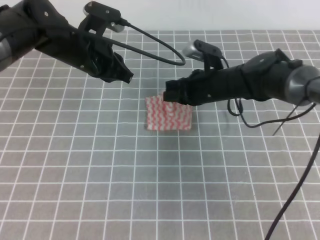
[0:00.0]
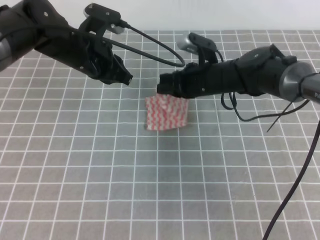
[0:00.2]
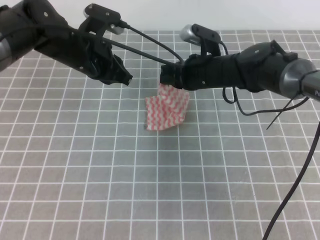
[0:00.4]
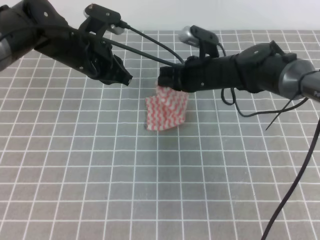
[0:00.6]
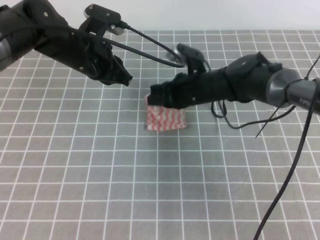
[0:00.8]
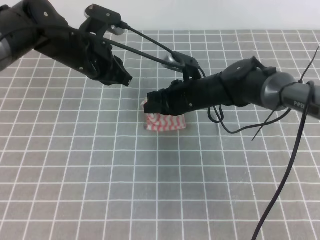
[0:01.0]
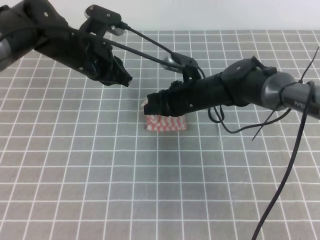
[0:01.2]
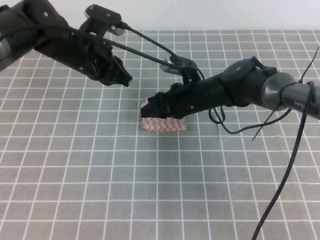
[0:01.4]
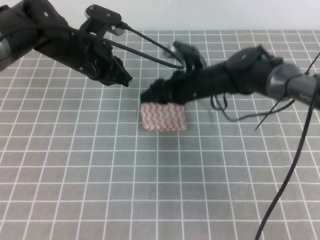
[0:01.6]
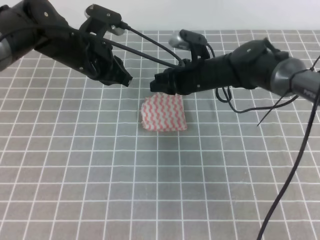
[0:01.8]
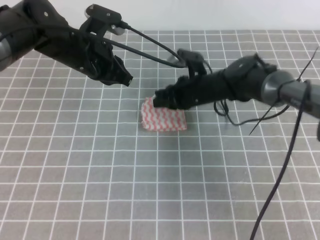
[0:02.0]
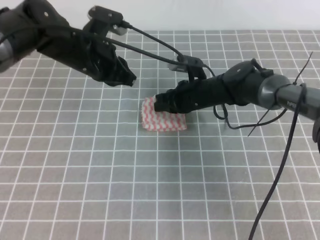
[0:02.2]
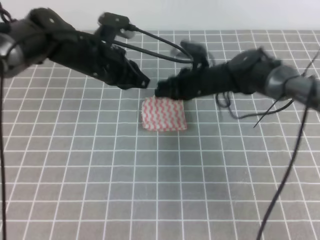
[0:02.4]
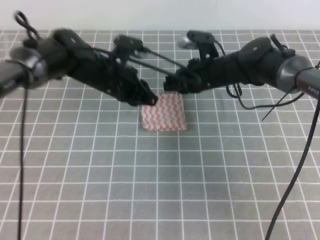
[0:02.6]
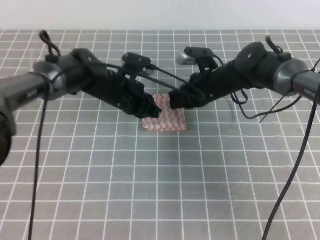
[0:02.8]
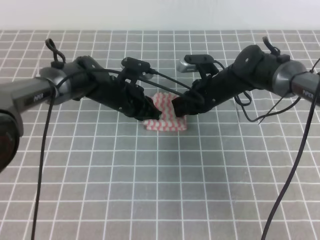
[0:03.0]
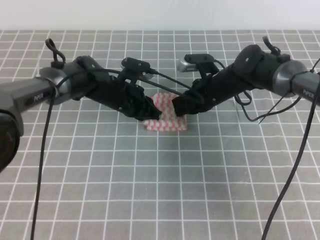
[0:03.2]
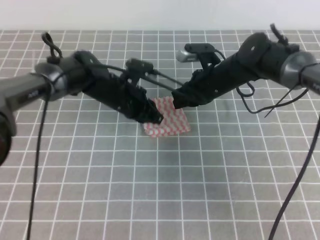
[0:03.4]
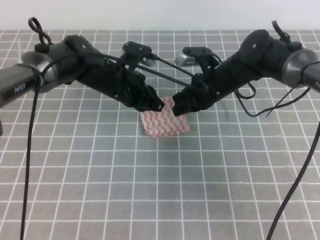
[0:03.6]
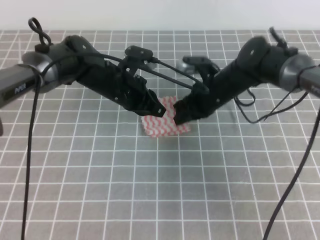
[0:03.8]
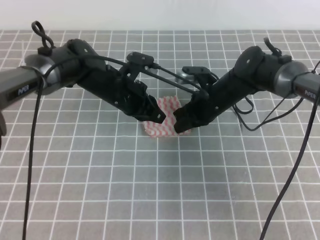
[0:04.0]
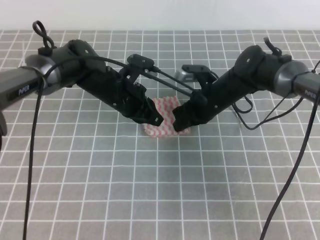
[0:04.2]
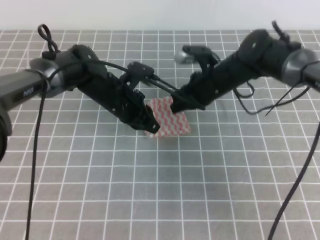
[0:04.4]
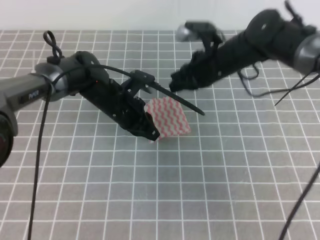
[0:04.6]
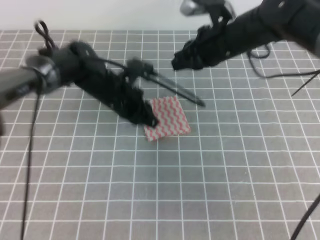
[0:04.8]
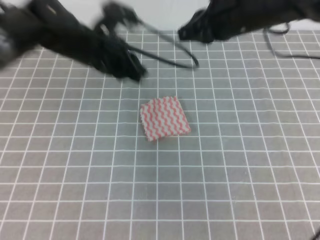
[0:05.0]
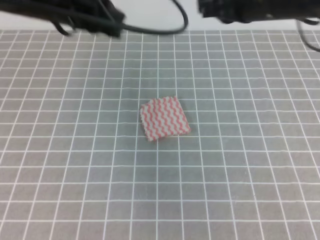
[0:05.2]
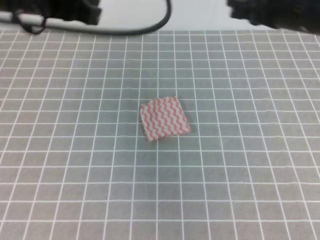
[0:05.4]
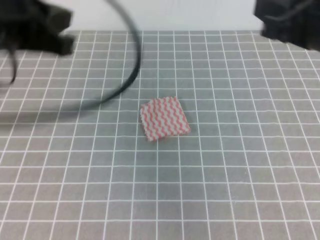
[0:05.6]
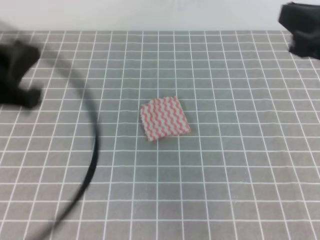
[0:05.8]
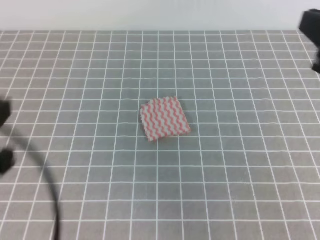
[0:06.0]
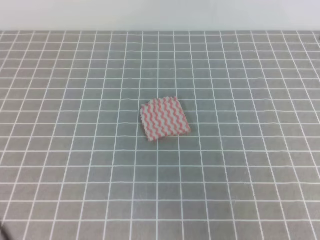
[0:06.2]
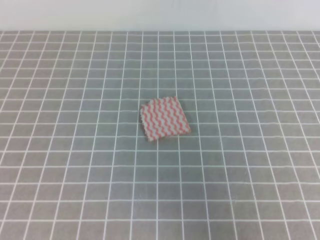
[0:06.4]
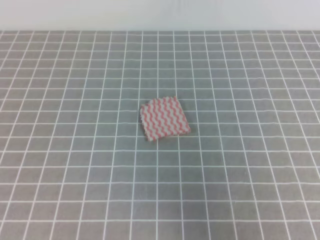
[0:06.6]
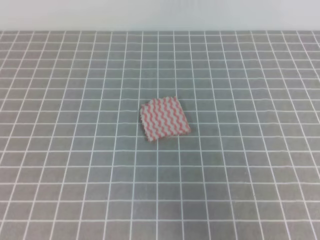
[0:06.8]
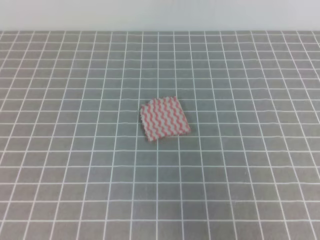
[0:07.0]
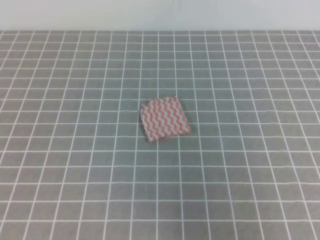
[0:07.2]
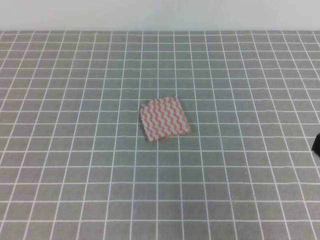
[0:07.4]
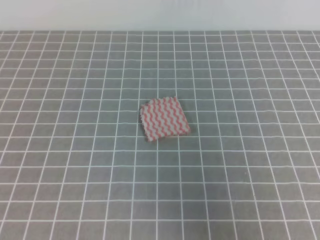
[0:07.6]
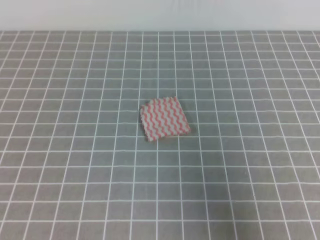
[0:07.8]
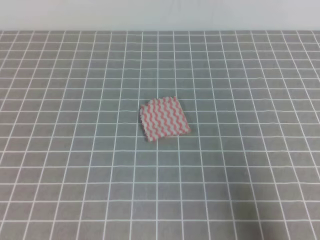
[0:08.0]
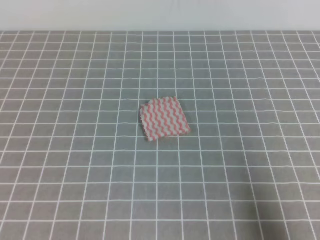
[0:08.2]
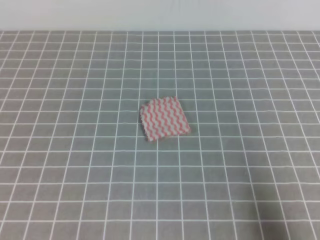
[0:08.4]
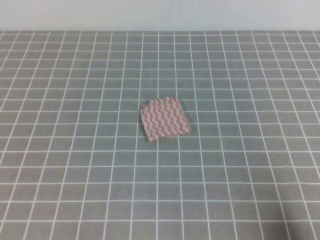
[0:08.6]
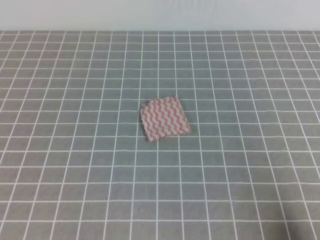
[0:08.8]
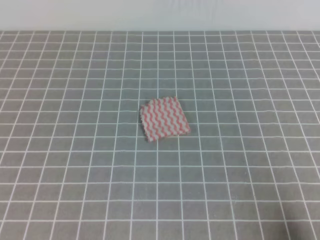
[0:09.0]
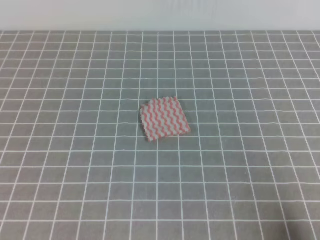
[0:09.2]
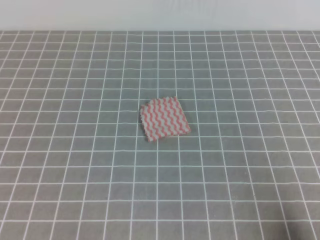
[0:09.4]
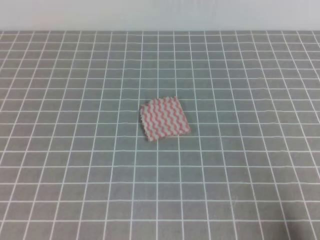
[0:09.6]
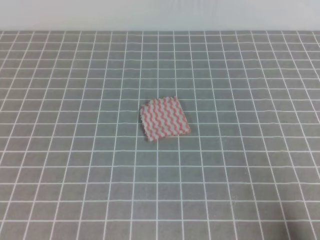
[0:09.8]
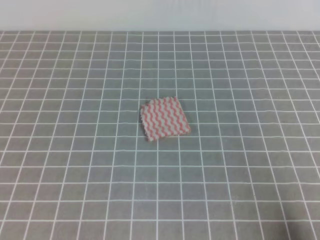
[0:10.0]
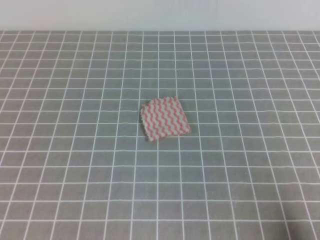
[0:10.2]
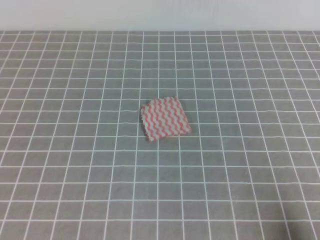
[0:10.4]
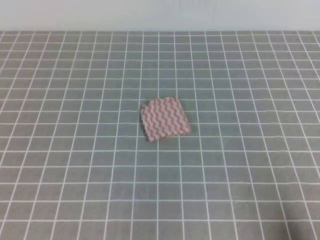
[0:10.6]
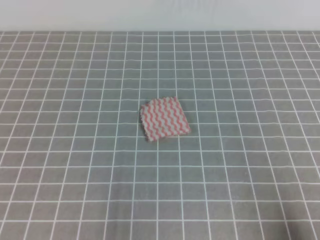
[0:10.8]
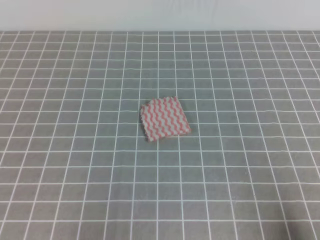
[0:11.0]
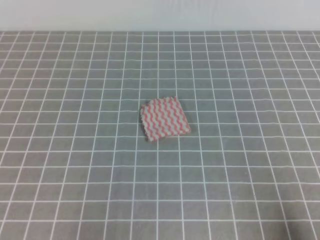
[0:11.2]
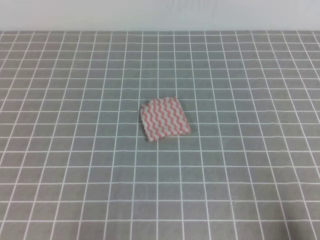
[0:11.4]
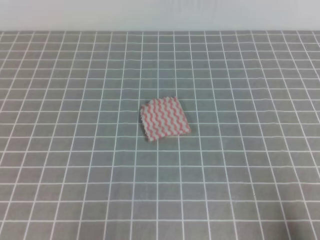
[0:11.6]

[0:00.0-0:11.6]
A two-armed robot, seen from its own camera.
0:00.0 to 0:01.4: The right gripper opens its fingers.
0:01.4 to 0:02.8: The right gripper closes. The left gripper is displaced downward by approximately 10 cm.
0:02.8 to 0:04.4: The grippers make only small movements.
0:04.4 to 0:05.8: The left gripper is displaced backward, upward and to the left by about 35 cm. Meanwhile the right gripper heads backward, upward and to the right, covering roughly 30 cm.
0:05.8 to 0:07.2: The right gripper travels backward by roughly 15 cm. The left gripper moves backward, downward and to the left, some 15 cm.
0:07.2 to 0:08.8: The right gripper is displaced downward by roughly 15 cm.

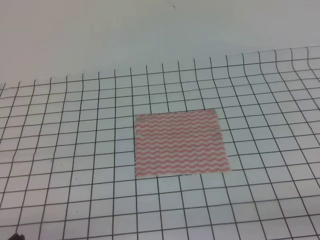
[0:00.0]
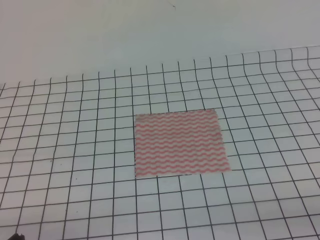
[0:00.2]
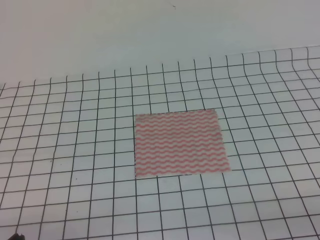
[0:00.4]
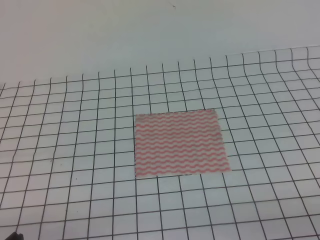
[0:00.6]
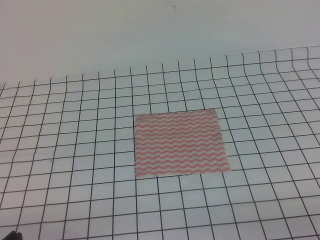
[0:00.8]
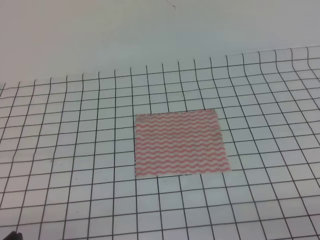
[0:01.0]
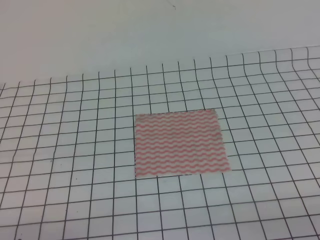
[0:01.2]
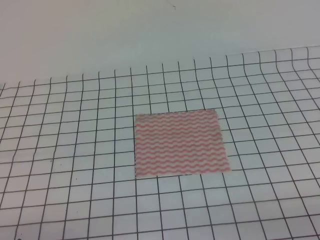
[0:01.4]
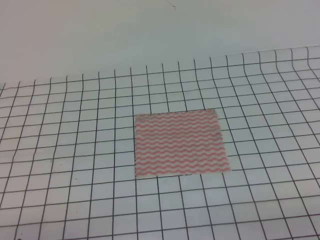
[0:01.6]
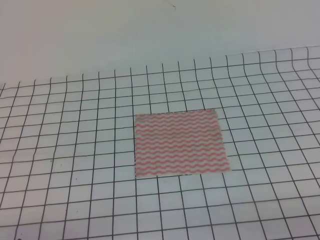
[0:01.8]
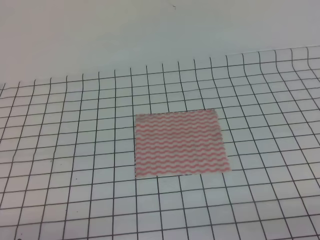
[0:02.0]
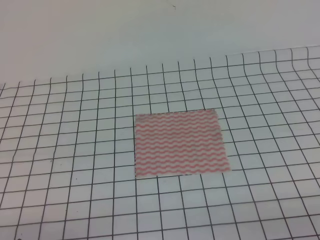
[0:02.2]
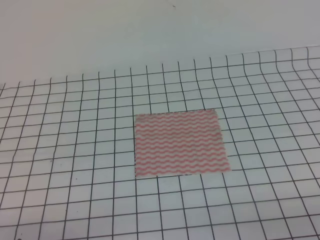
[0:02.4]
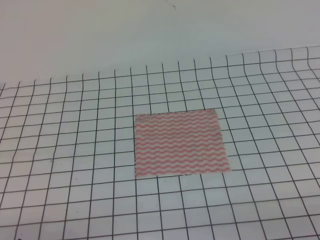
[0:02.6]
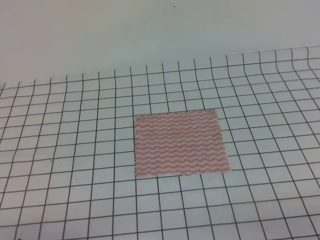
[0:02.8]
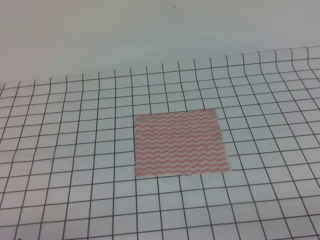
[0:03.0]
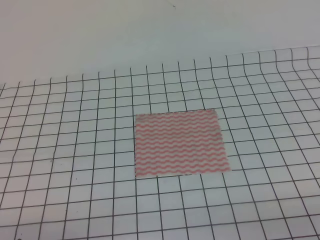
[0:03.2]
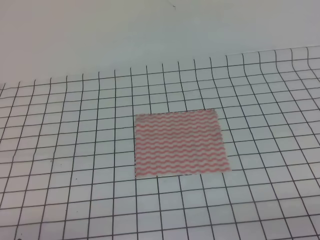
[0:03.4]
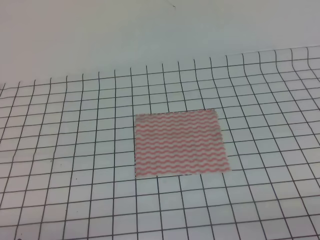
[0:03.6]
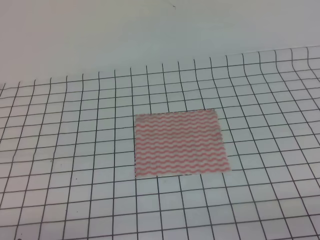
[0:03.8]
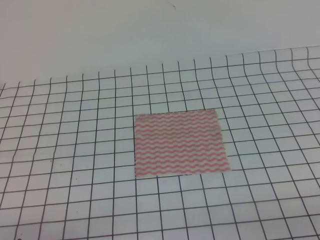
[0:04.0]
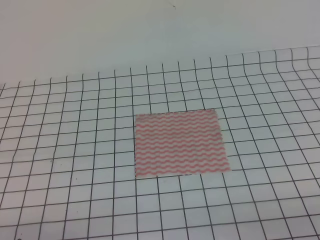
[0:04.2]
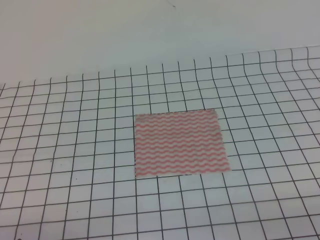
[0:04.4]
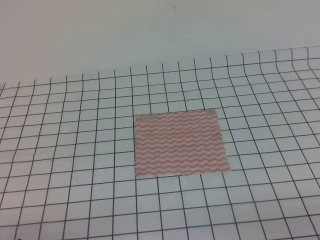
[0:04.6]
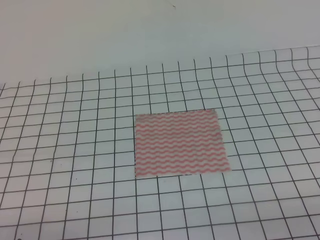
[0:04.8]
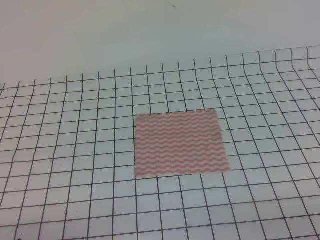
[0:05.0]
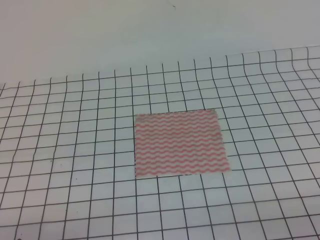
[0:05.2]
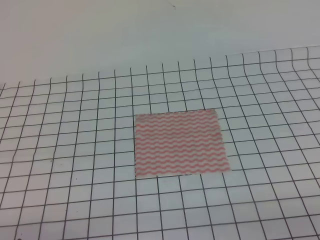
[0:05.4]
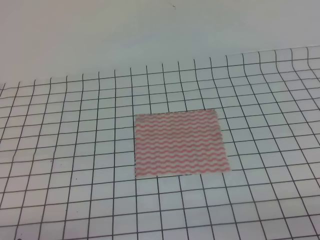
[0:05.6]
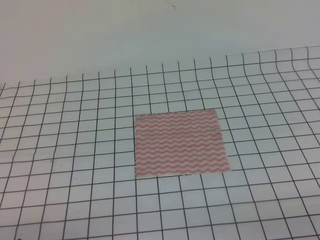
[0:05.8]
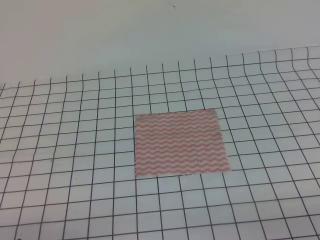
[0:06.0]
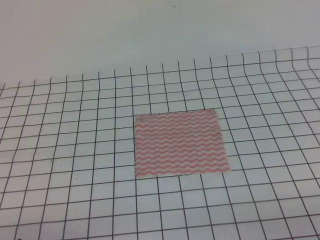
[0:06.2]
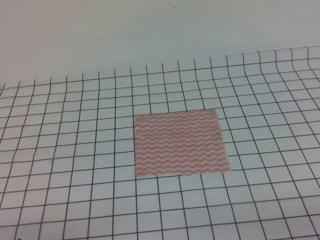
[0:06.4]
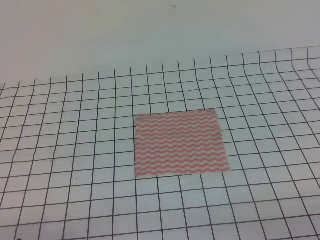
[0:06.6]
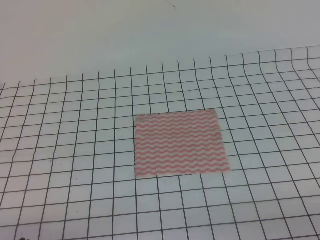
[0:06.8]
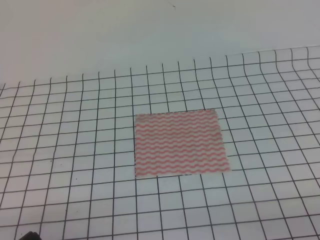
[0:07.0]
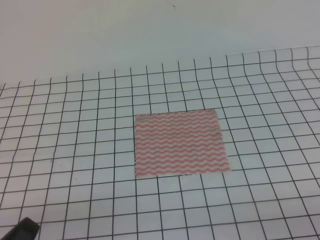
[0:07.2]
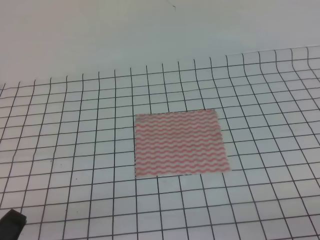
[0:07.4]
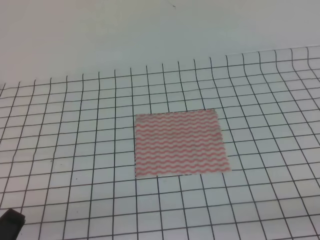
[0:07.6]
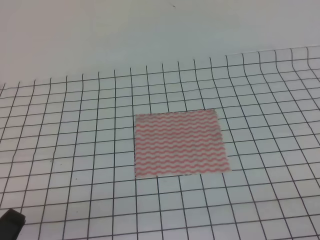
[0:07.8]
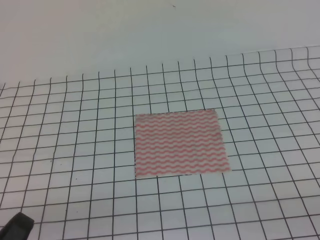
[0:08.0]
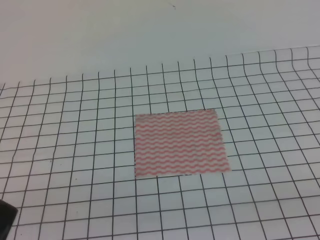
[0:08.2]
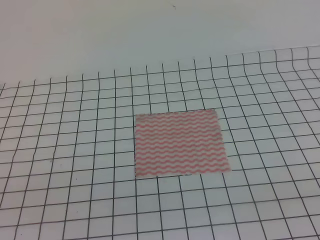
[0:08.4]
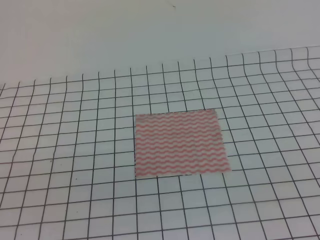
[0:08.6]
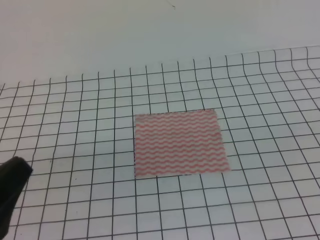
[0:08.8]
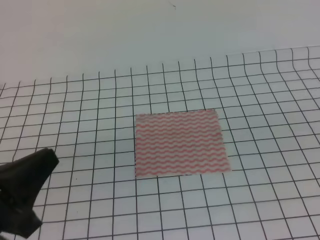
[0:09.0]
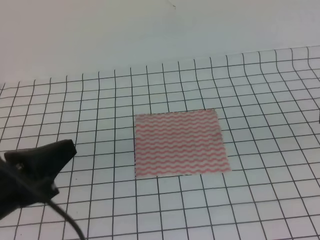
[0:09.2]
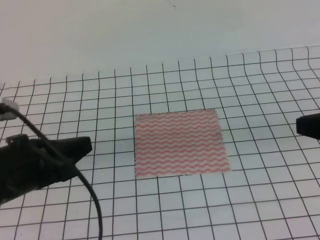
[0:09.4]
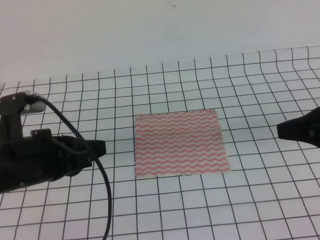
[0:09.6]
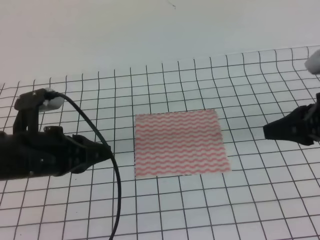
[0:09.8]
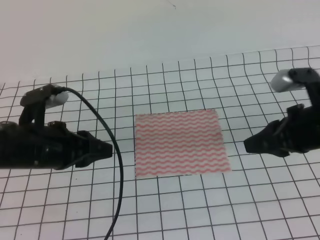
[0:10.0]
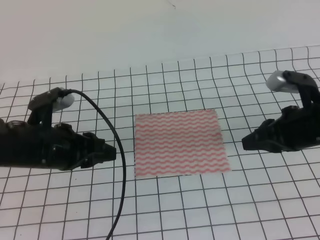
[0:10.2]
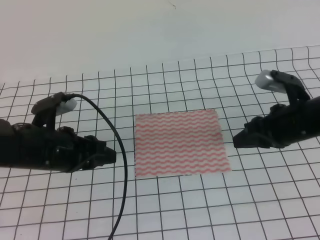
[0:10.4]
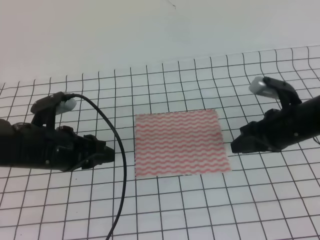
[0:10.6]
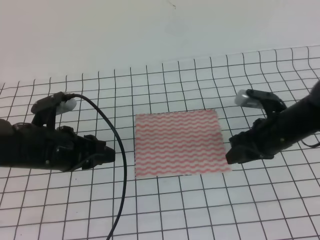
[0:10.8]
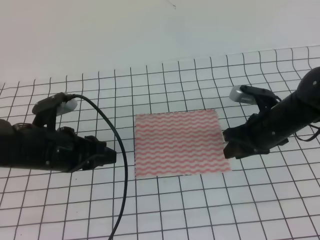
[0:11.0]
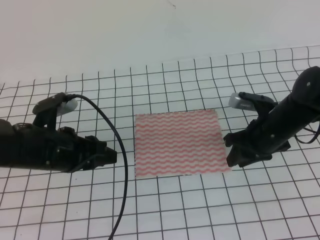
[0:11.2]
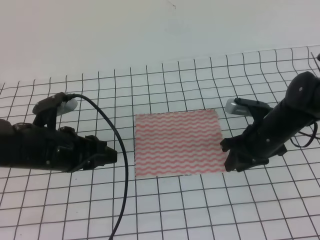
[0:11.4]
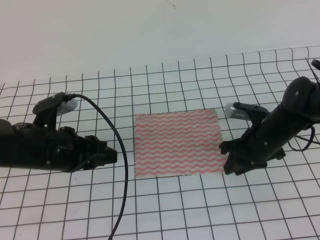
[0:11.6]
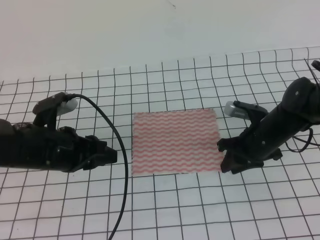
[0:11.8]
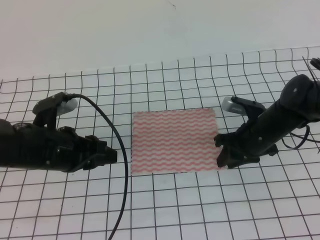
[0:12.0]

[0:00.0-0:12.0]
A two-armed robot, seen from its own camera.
0:01.6 to 0:06.0: Neither gripper changes place.
0:07.6 to 0:09.0: The left gripper shifts about 10 cm upward and forward.
0:09.0 to 0:10.4: The right gripper heads forward and downward, covering approximately 25 cm, and opens its fingers; the left gripper travels forward by some 15 cm, and opens up.
0:10.4 to 0:12.0: The right gripper shifts about 10 cm downward and forward.
